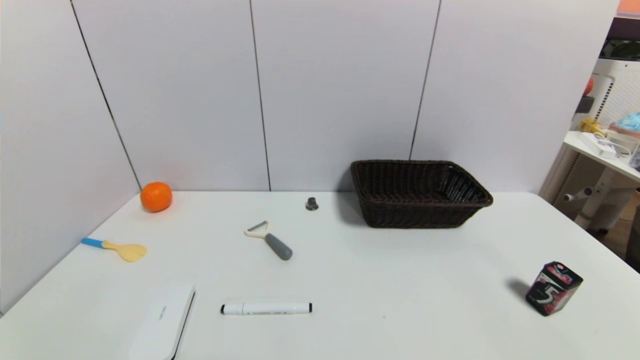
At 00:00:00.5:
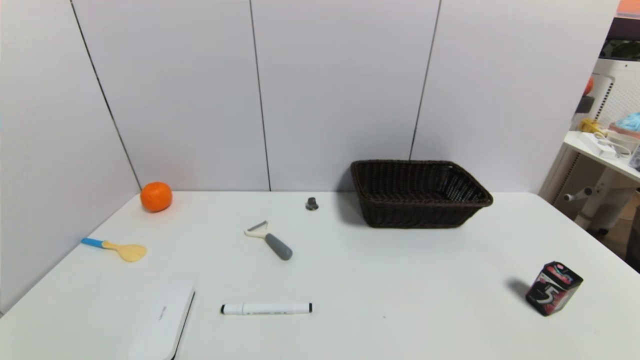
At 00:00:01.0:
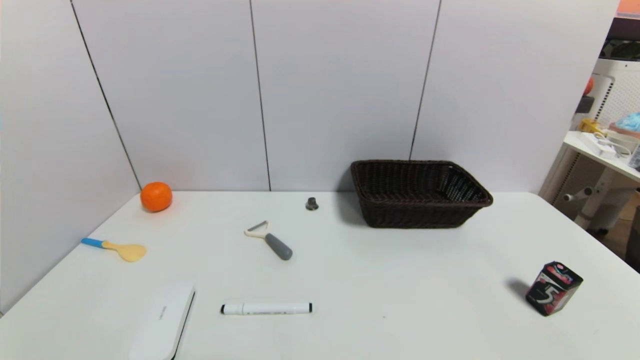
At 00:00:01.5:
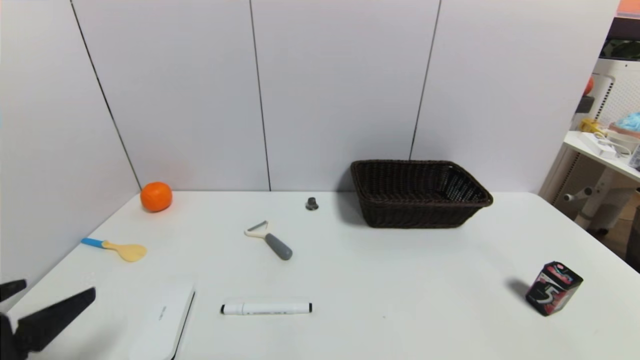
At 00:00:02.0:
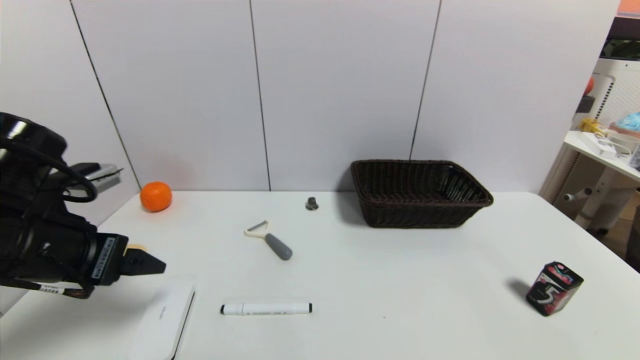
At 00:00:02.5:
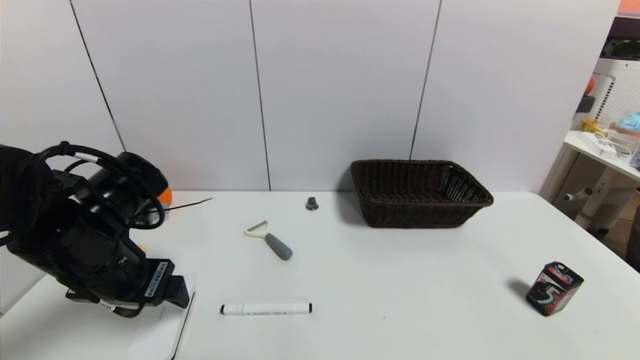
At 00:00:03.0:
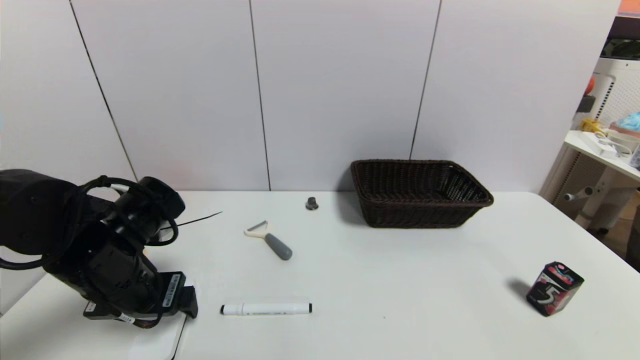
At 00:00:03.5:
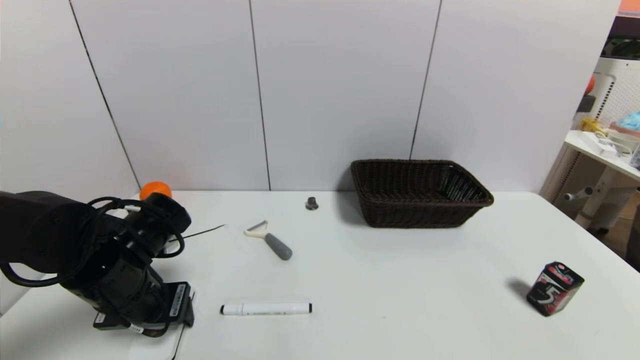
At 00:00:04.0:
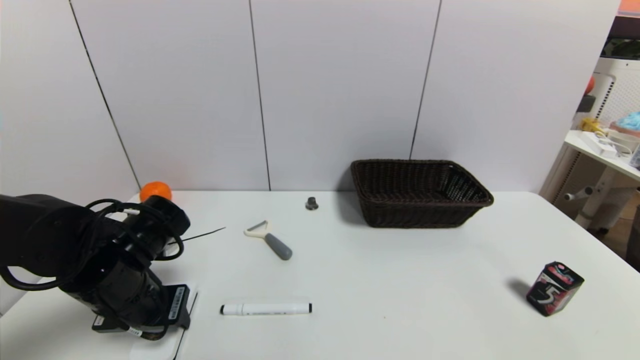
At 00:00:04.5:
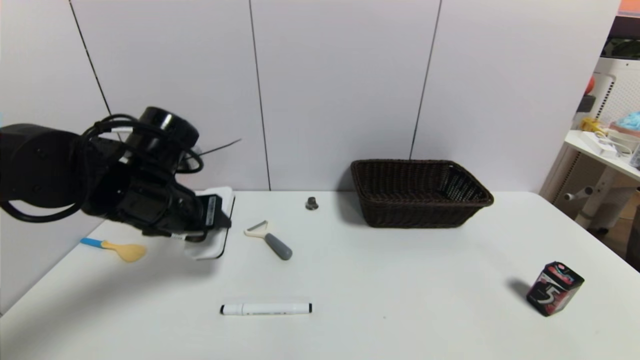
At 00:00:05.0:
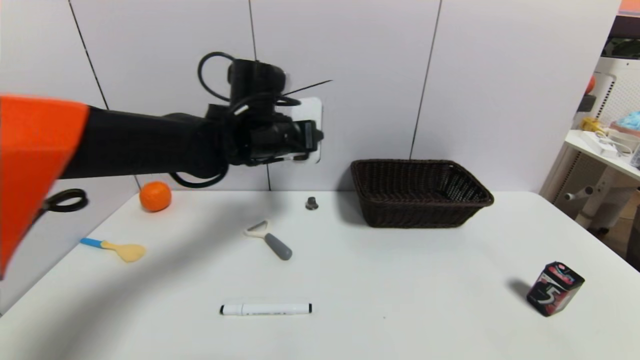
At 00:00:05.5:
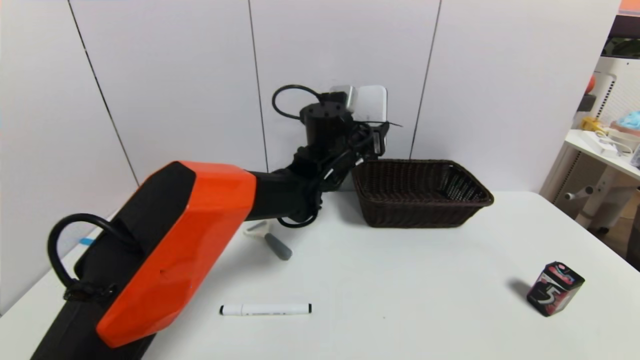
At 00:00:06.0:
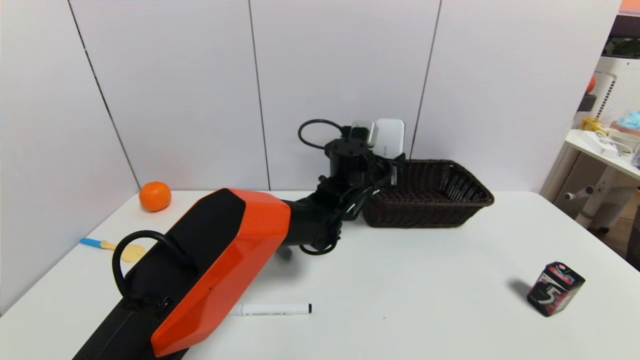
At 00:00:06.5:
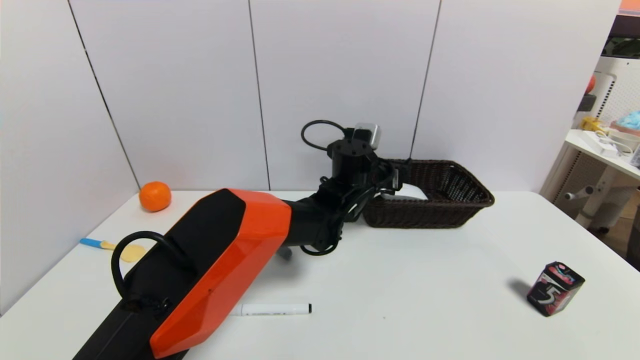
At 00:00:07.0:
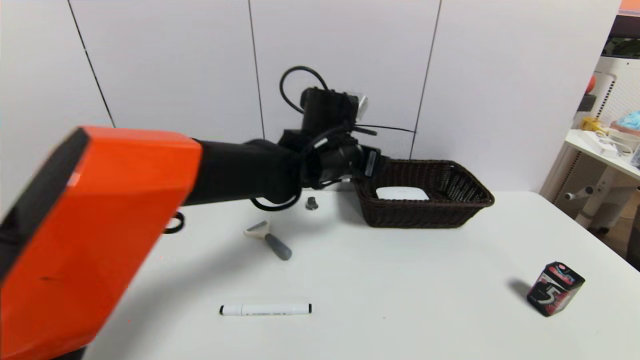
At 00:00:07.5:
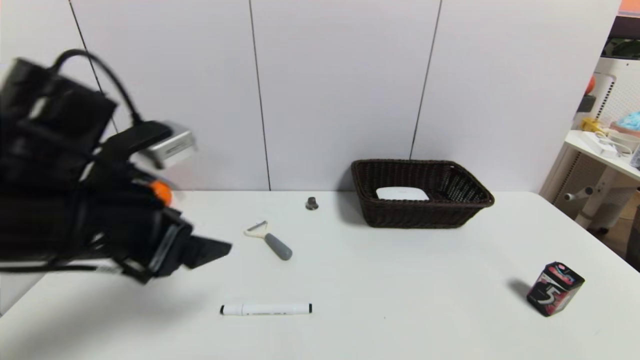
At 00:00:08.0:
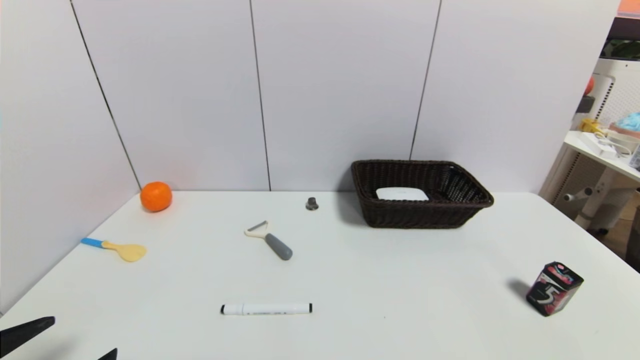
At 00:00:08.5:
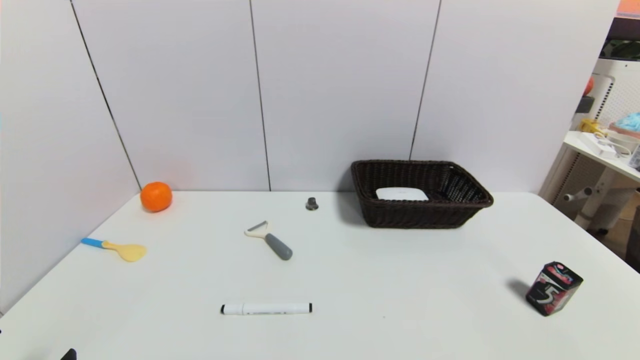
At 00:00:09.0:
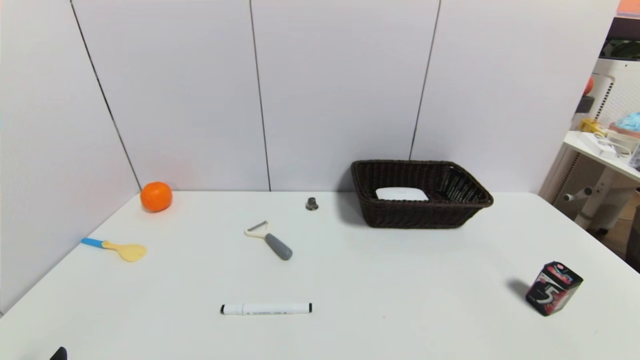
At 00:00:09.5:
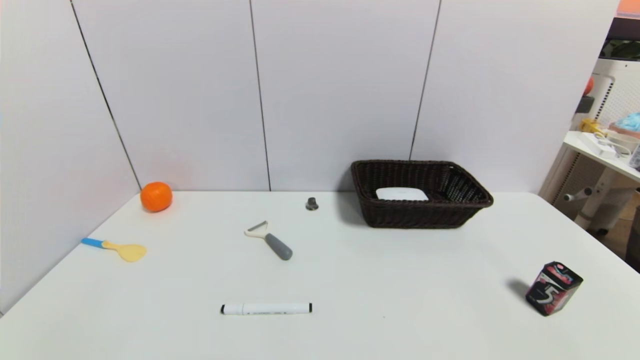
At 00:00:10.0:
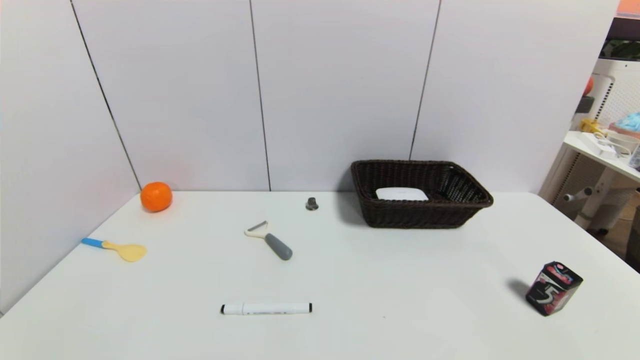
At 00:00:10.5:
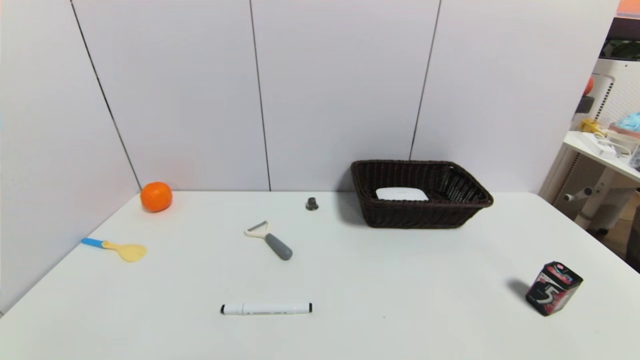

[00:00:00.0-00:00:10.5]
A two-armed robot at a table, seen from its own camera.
Task of the whole recording: use a gripper to pick the target object and place on the brown basket.
Step, 00:00:00.0 to 00:00:03.5: Grasp the blackboard erasure with the left gripper.
Step, 00:00:04.0 to 00:00:06.5: Place the blackboard erasure into the basket with the left gripper.
00:00:00.0 to 00:00:02.0: The left gripper shifts about 25 cm forward and upward.
00:00:02.0 to 00:00:04.0: The left gripper is displaced downward by about 10 cm, and closes up.
00:00:04.0 to 00:00:06.5: The left gripper travels to the right and forward by approximately 35 cm, and opens up.
00:00:06.5 to 00:00:08.5: The left gripper heads backward and to the left, covering approximately 50 cm, and opens.
